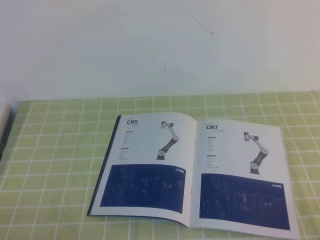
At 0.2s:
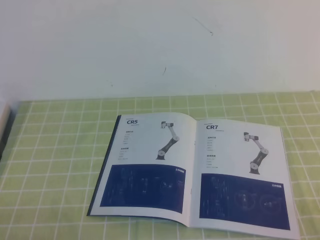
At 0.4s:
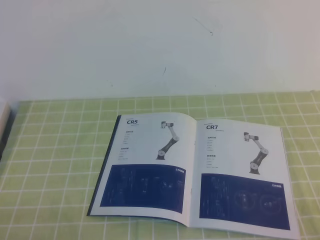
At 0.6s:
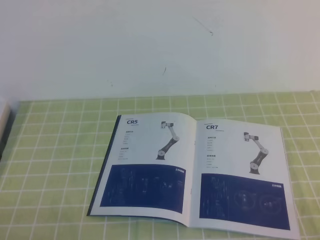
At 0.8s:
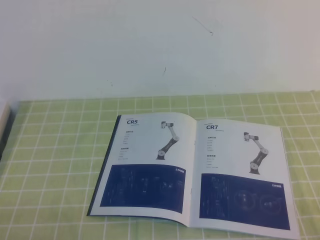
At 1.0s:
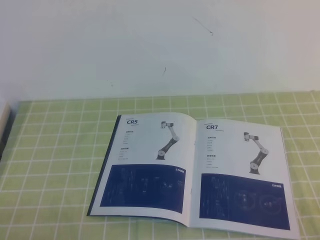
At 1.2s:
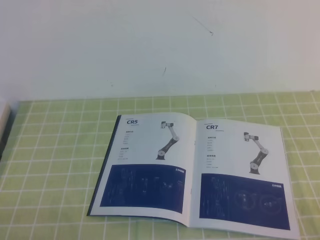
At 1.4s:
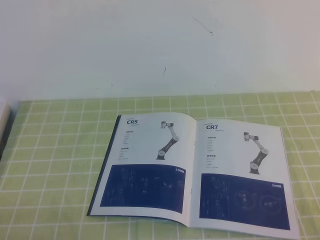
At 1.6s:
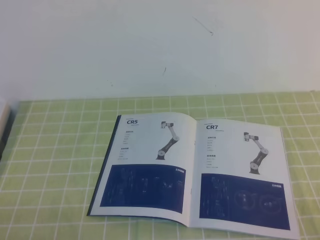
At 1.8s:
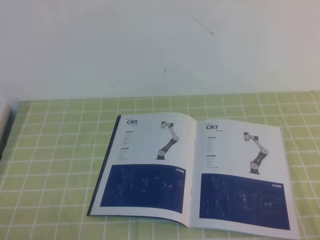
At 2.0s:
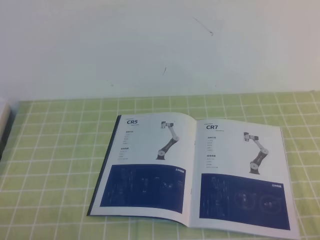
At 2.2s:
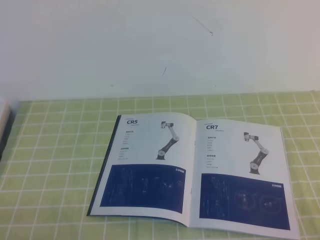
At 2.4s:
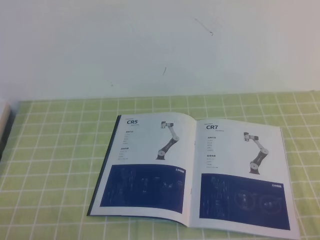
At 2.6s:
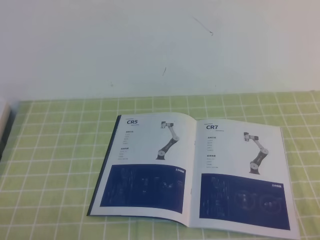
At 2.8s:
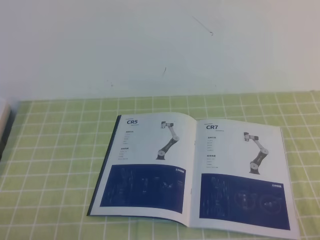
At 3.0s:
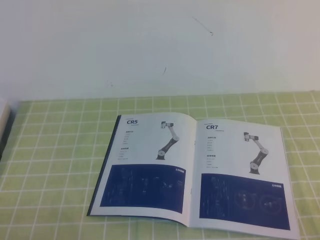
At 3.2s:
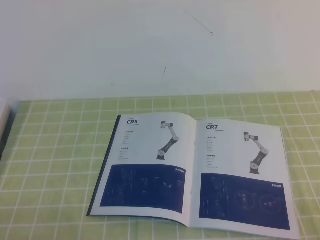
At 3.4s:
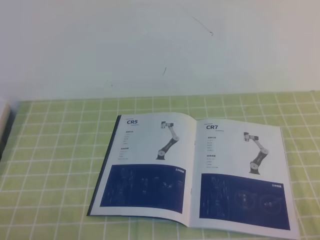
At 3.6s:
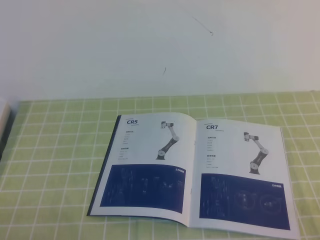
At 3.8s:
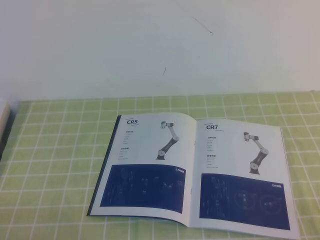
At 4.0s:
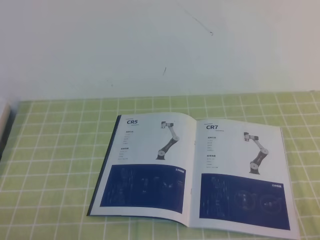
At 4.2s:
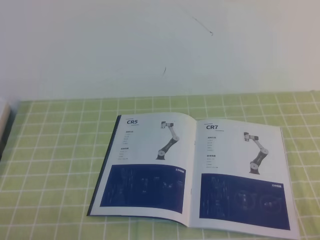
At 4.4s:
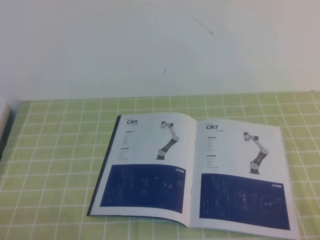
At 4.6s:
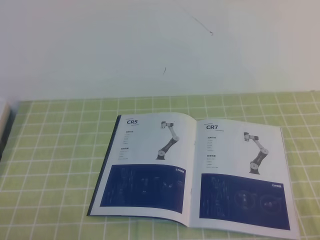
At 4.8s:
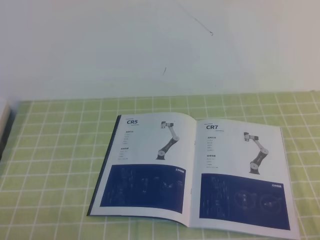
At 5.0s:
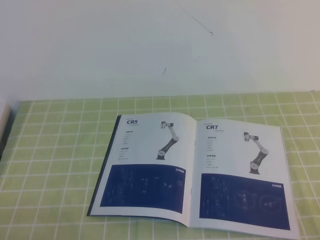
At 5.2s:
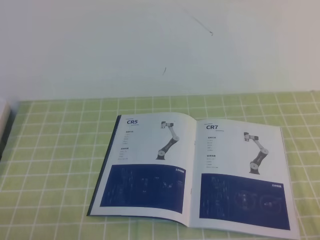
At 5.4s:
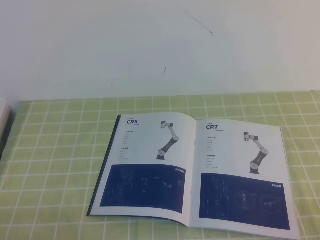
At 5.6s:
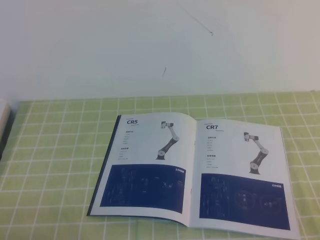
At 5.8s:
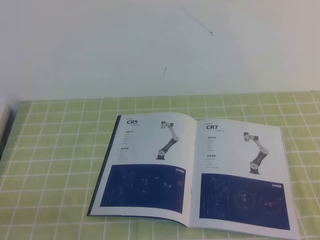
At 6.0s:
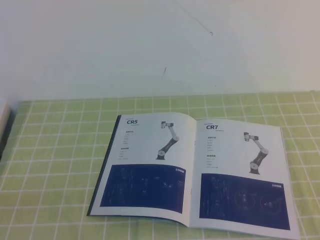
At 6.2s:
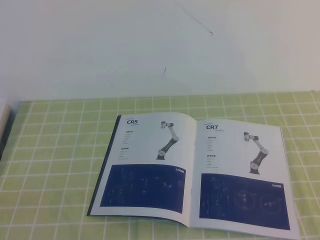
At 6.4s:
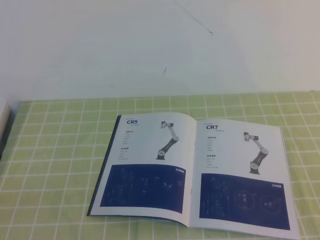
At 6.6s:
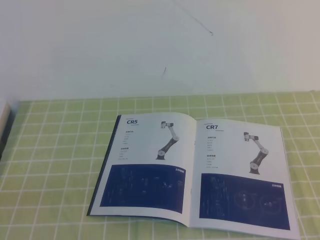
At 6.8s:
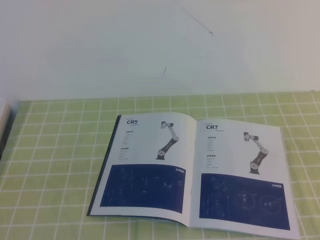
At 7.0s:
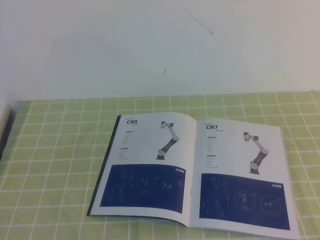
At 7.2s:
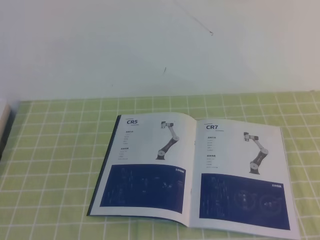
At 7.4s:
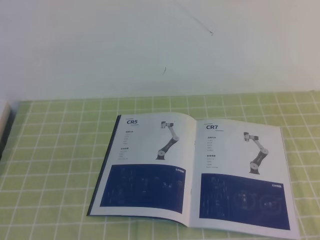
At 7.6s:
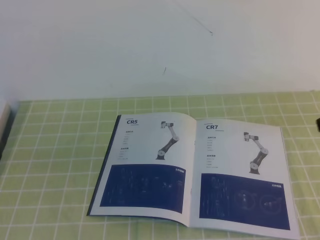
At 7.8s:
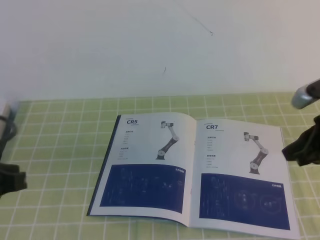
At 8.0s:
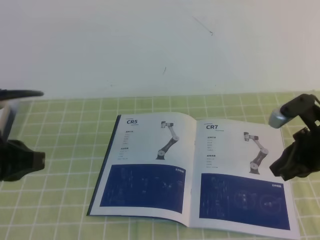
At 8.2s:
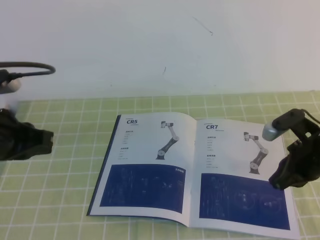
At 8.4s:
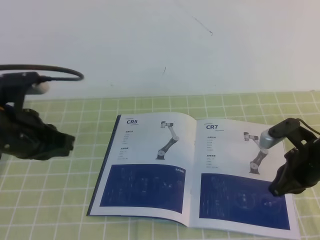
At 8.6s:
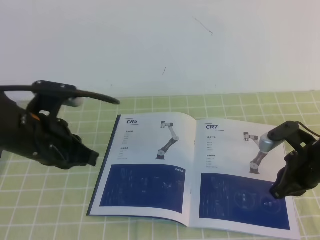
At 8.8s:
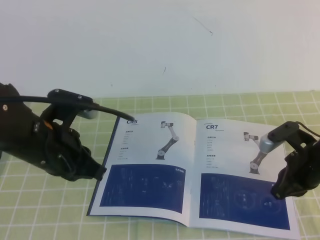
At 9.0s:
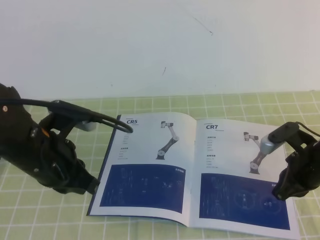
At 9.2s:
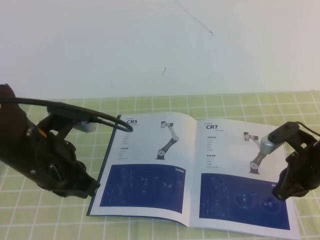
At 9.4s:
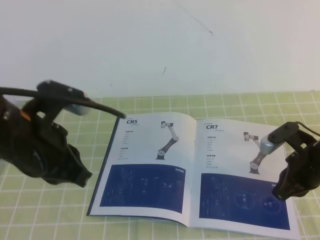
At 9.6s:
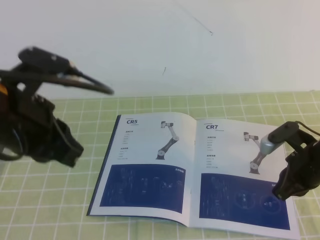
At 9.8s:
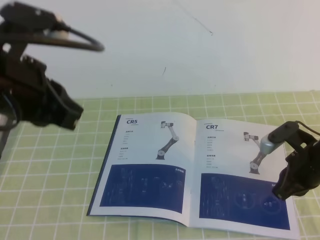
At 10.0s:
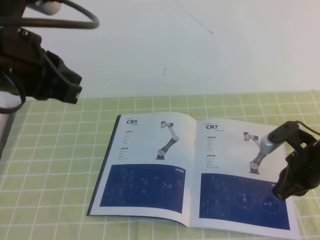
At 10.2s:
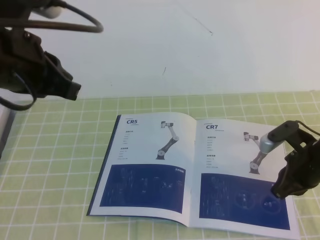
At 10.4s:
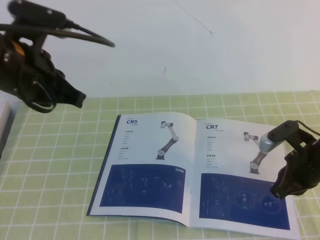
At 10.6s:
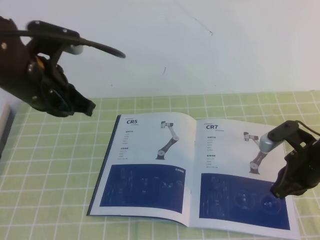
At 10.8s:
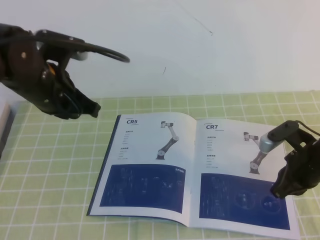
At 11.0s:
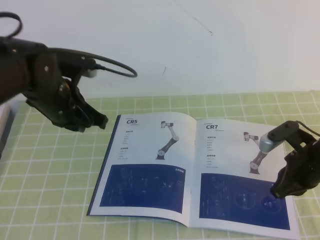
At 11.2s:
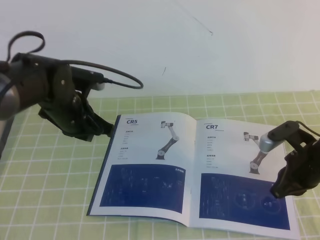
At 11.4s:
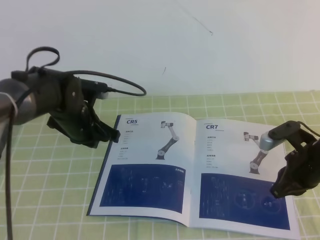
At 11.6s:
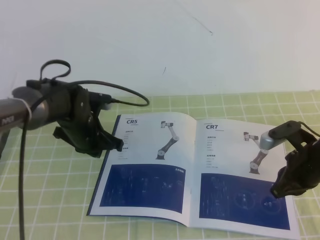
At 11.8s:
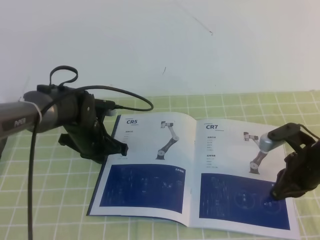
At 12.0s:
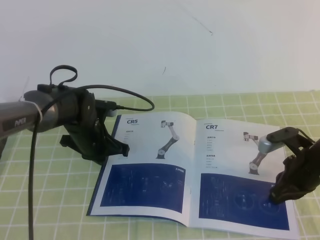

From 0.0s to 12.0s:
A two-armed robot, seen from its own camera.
Task of the whole recording: on the green tablecloth, hold the book with one hand and close it with the other.
From 1.6s to 4.4s: The two grippers keep their place.
From 7.6s to 9.0s: The left gripper goes roughly 15 cm forward and to the right. Meanwhile the right gripper heads downward and forward, covering roughly 20 cm.
From 9.0s to 10.4s: The left gripper shifts some 10 cm upward.
From 10.4s to 12.0s: The left gripper moves downward and forward, about 25 cm.

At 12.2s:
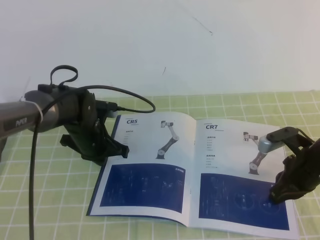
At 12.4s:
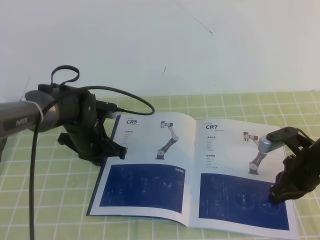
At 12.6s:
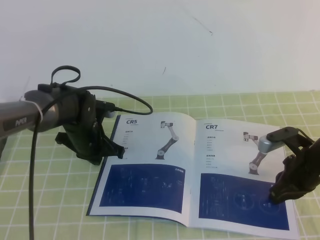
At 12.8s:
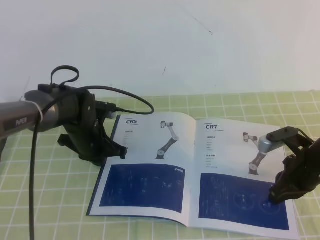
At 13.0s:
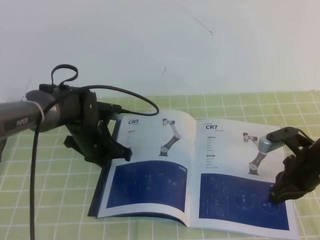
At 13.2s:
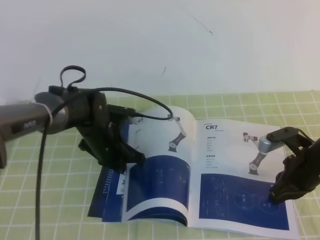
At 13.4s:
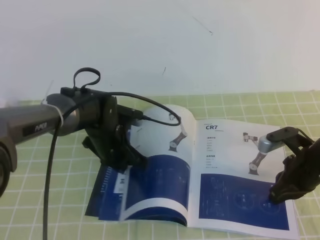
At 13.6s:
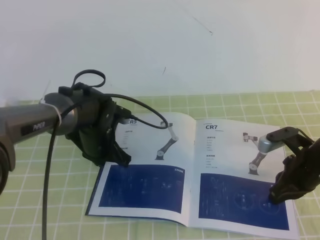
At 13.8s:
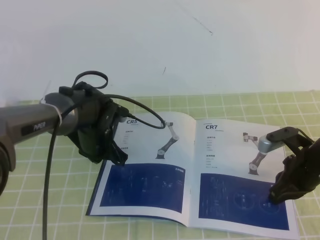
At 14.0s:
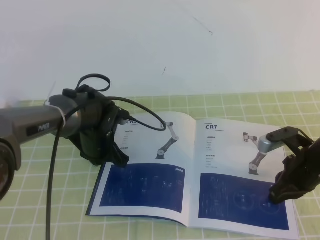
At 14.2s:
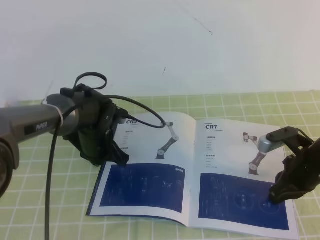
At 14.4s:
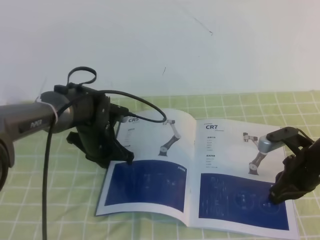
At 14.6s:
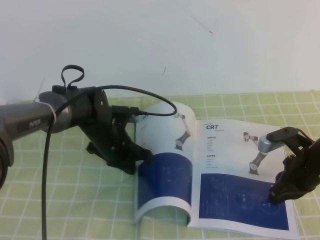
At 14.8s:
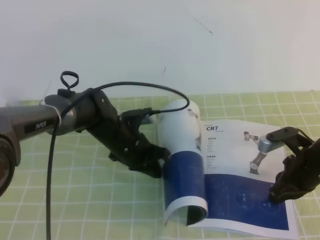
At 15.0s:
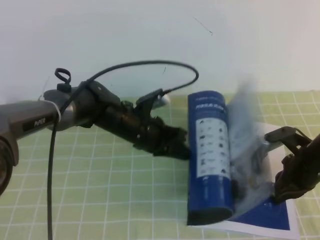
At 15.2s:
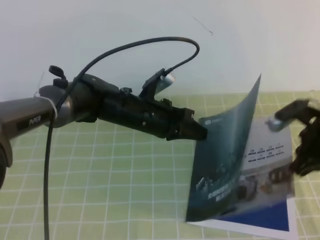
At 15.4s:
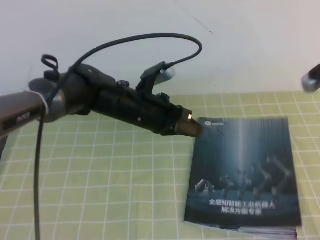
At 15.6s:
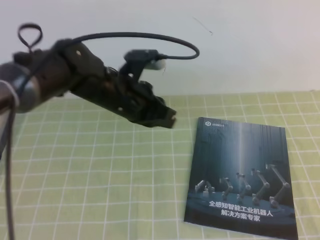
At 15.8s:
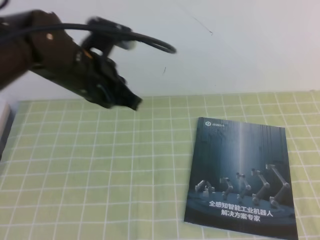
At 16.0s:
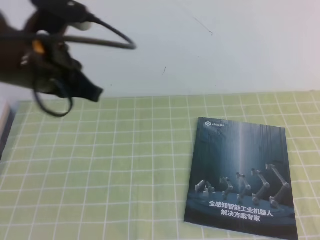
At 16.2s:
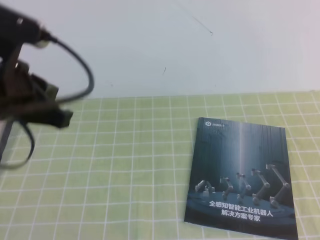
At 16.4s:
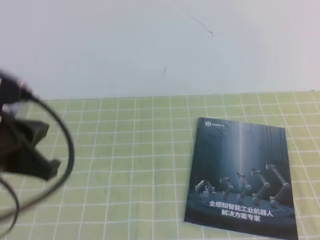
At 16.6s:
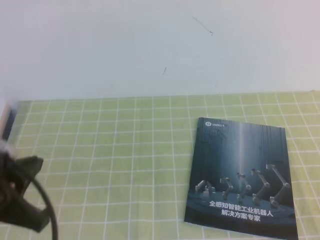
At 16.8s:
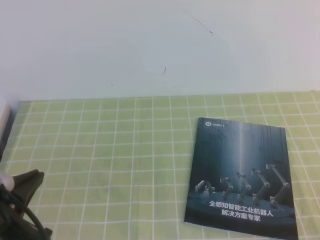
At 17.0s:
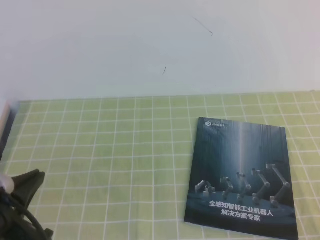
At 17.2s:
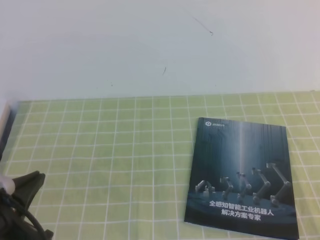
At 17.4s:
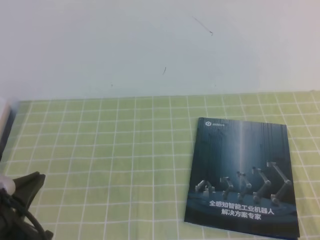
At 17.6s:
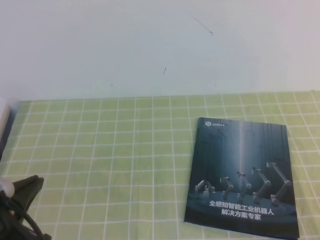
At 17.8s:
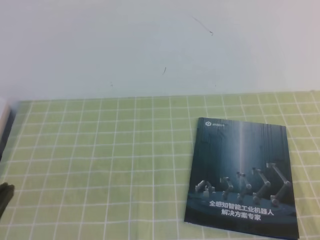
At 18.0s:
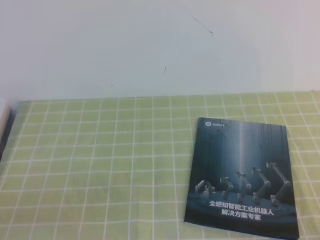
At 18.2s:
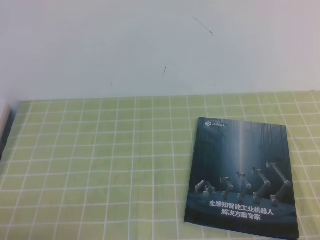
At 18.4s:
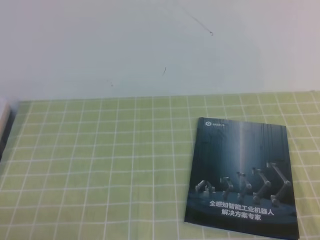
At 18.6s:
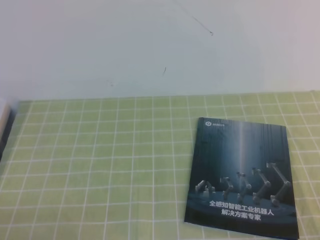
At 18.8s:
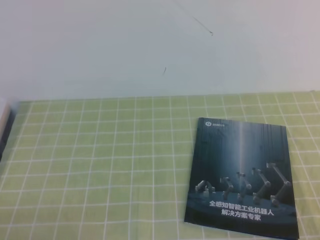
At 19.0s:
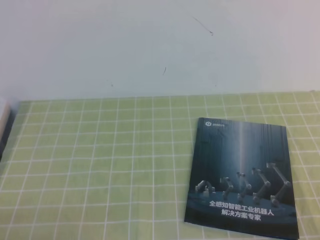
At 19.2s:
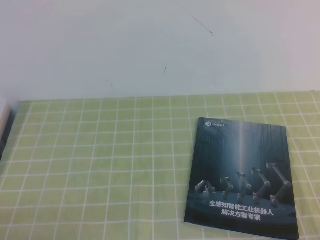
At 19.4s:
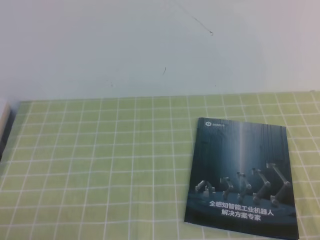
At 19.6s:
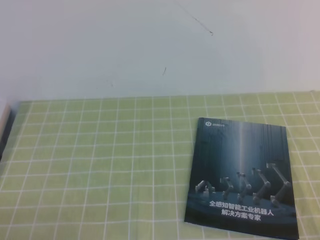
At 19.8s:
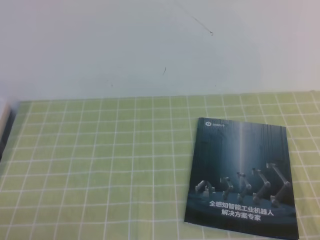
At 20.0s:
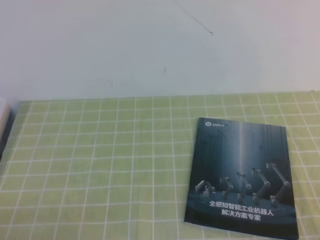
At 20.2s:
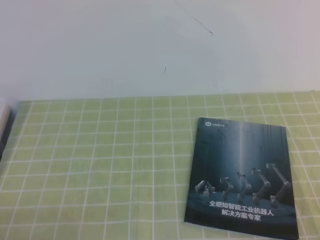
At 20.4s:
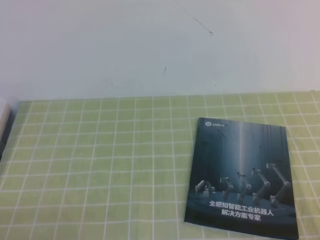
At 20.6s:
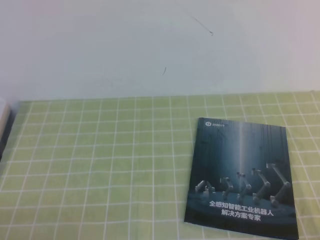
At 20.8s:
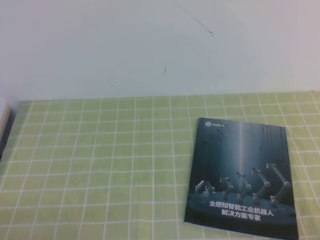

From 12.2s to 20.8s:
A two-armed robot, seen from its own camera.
Task of the whole recording: on the green tablecloth, hold the book with one hand and close it with the other.
Step, from 12.2s to 20.8s: Close the open book.
From 12.2s to 13.6s: The grippers make only small movements.
From 13.6s to 15.0s: The left gripper shifts by approximately 5 cm.
From 15.0s to 16.6s: The right gripper heads backward and upward, covering approximately 30 cm. The left gripper goes approximately 30 cm backward, upward and to the left.
From 16.6s to 18.0s: The right gripper changes place by some 5 cm. The left gripper moves backward and downward, approximately 10 cm.
